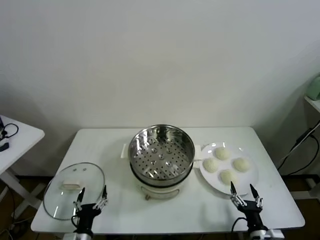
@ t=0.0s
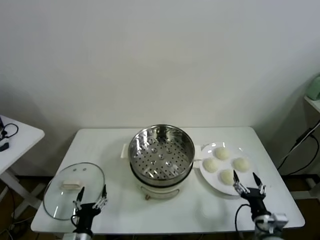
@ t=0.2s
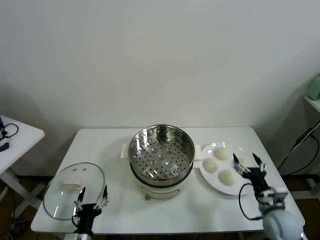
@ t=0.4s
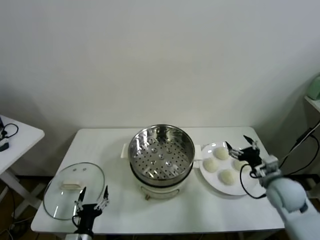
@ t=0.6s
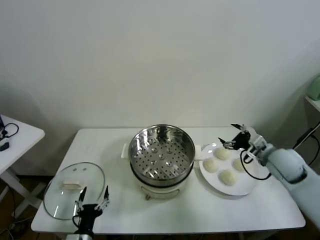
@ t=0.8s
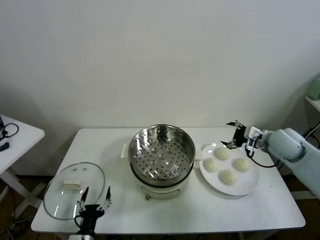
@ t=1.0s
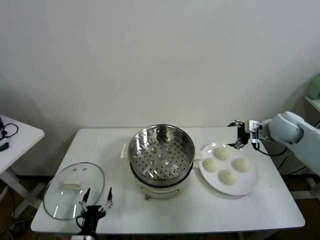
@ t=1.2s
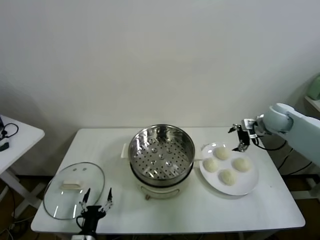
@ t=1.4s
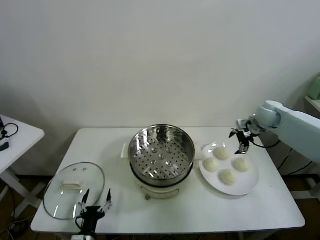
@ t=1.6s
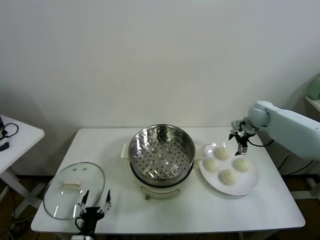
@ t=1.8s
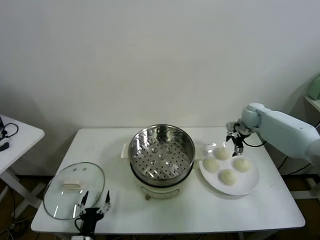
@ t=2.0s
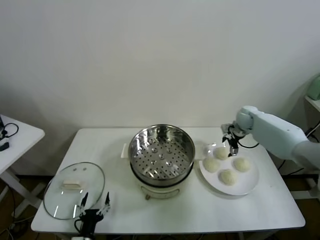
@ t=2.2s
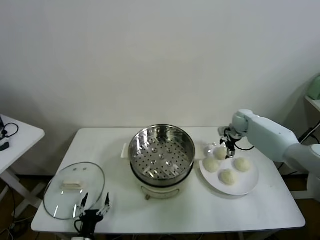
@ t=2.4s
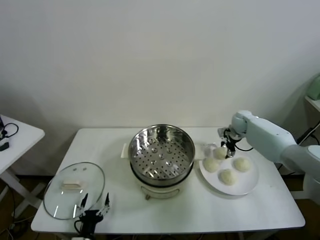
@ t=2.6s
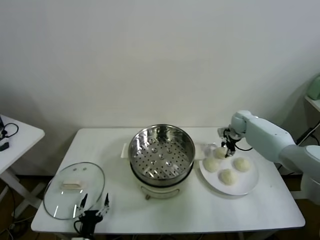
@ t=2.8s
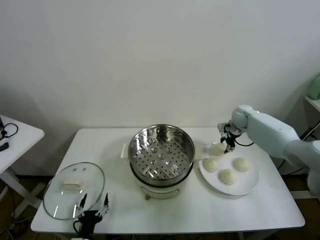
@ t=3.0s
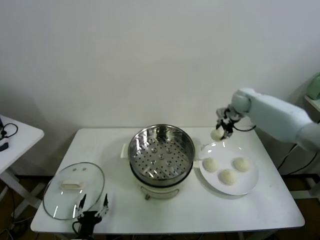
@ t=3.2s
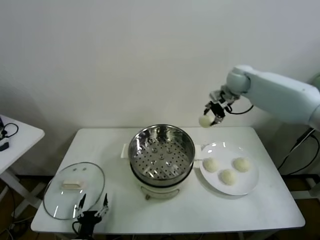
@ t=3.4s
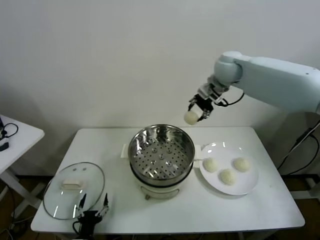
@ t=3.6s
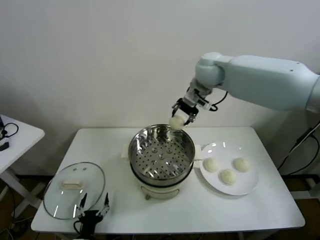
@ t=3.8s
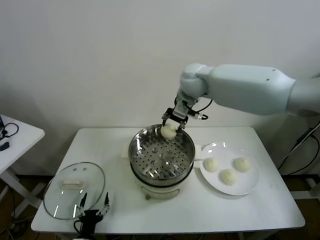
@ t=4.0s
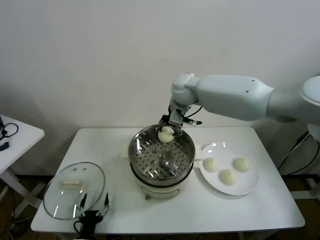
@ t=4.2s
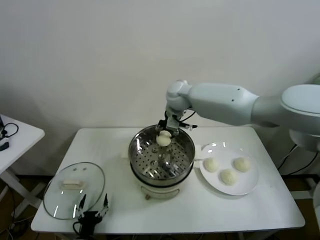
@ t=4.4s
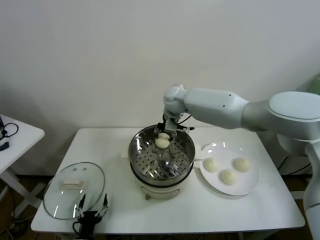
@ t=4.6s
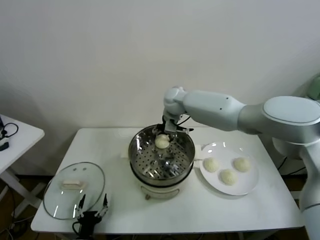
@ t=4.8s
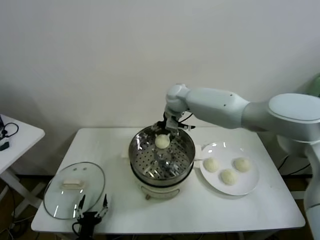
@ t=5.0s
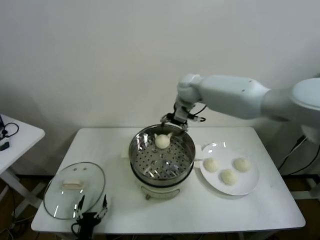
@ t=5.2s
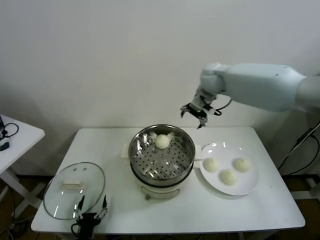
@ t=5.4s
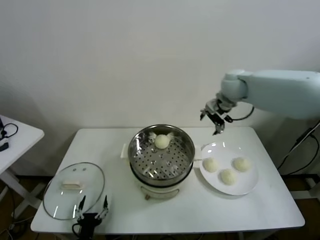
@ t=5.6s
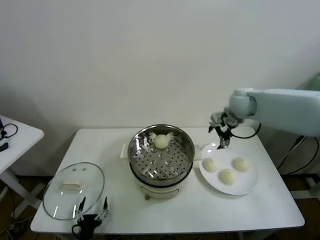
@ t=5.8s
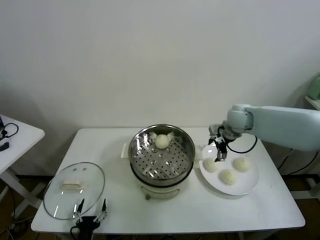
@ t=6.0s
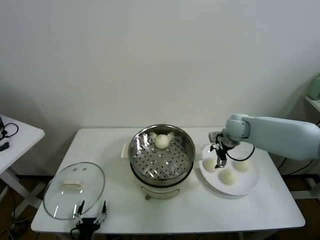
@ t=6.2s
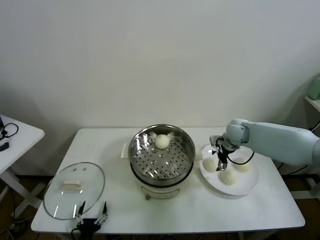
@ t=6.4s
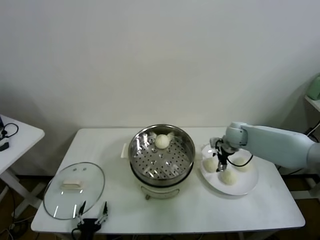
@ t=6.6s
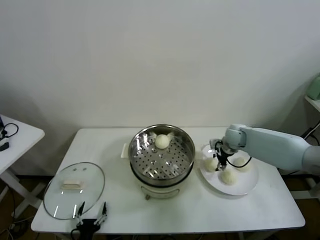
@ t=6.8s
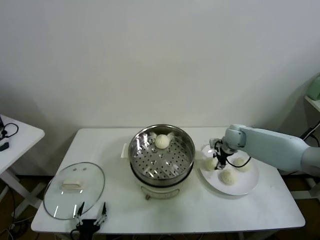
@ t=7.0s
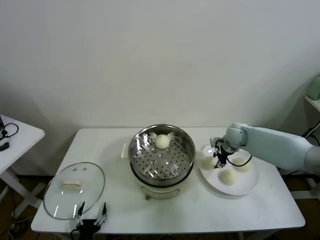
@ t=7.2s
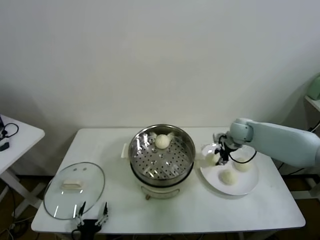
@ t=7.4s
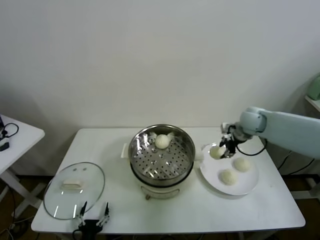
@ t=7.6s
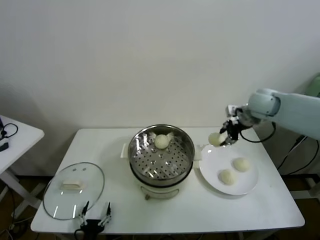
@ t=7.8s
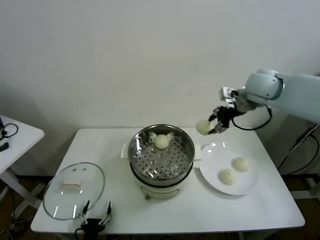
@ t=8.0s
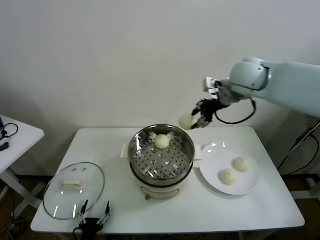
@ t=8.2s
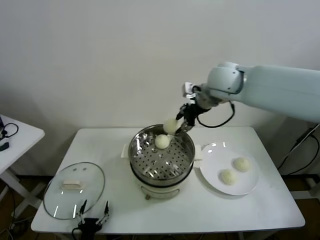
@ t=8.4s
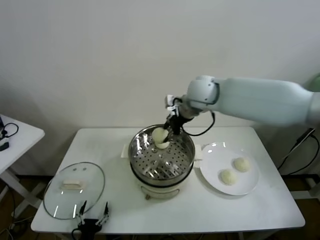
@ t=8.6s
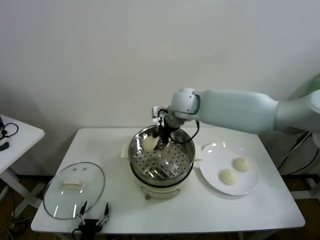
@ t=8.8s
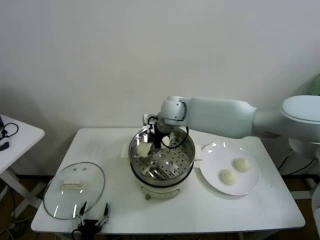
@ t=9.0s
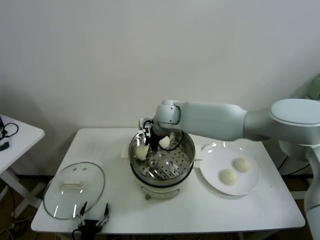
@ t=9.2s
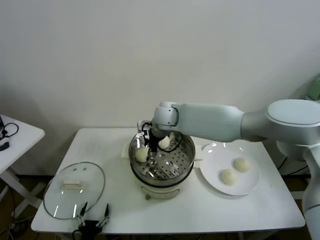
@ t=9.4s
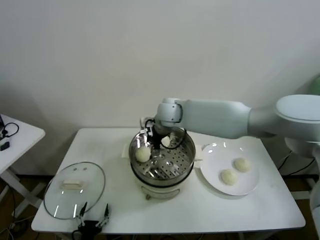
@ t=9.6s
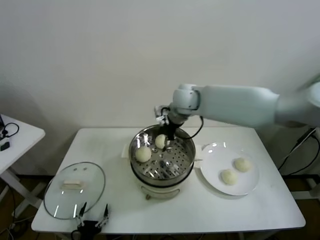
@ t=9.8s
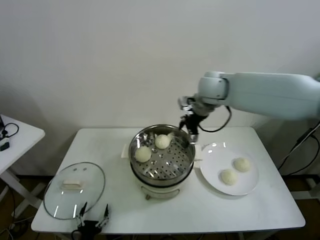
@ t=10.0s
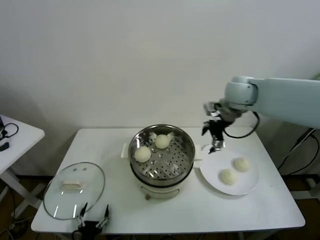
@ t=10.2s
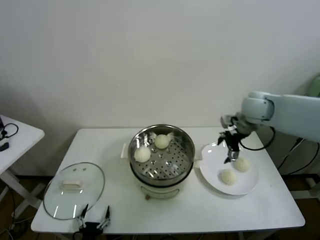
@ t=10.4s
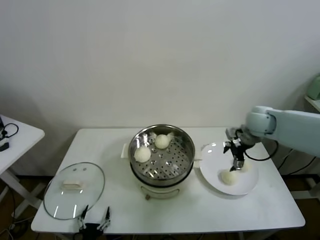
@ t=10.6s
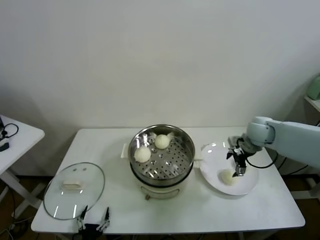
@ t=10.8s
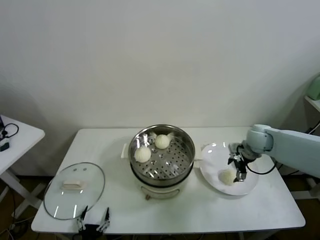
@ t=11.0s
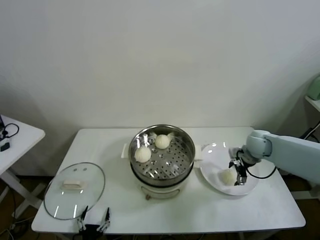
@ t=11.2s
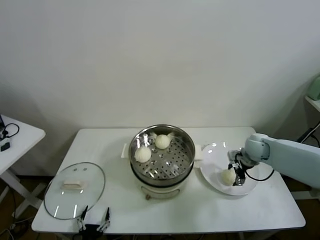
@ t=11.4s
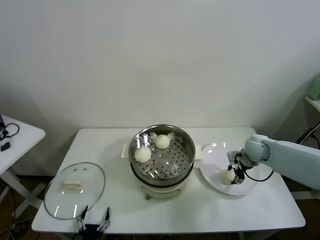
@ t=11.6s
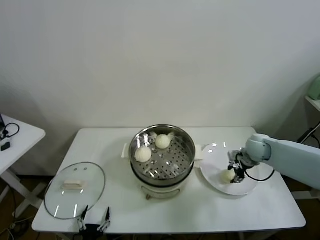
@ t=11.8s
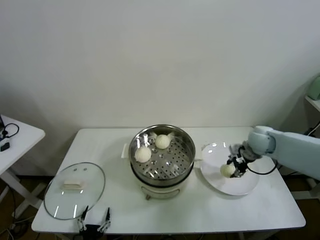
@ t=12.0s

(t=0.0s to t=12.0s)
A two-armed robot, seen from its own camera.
Task of the whole recording: take steamed baozi put them in steamer.
Step, t=0.0s - t=2.8s: Grasp the baozi in the plate with right gripper.
Step, t=3.0s - t=5.0s: Place the baozi on the steamer with right gripper.
Step, t=5.2s - t=7.0s: Grasp the baozi in the plate with right gripper.
Step, t=7.2s - t=9.4s: Place the baozi on the steamer with right gripper.
Step, t=9.6s - t=11.6s: Grasp the baozi in the plate with right gripper.
t=1.6s - t=3.0s: The right gripper heads forward, covering approximately 5 cm, moves approximately 10 cm downward and comes back, and closes up.
t=3.0s - t=4.4s: The right gripper shifts roughly 30 cm to the left.
t=4.4s - t=6.0s: The right gripper goes approximately 20 cm to the right, and opens its fingers.
t=6.0s - t=7.6s: The right gripper travels to the right by approximately 5 cm, moves some 10 cm downward and comes back, and closes its fingers.
t=7.6s - t=9.0s: The right gripper goes about 30 cm to the left.
t=9.0s - t=10.4s: The right gripper moves to the right, about 25 cm, and opens its fingers.
t=10.4s - t=12.0s: The right gripper travels downward and to the right by some 15 cm, and closes its fingers.

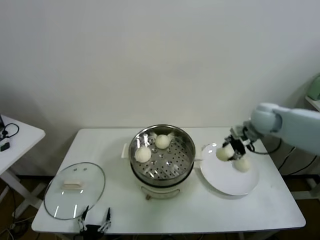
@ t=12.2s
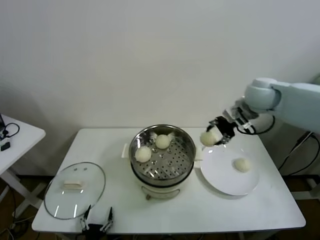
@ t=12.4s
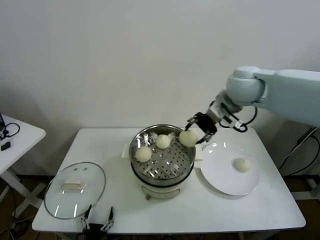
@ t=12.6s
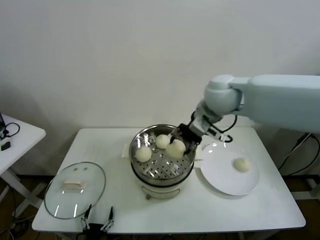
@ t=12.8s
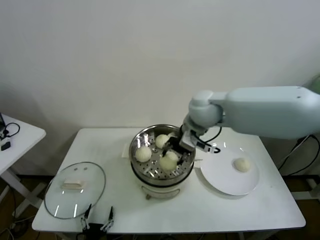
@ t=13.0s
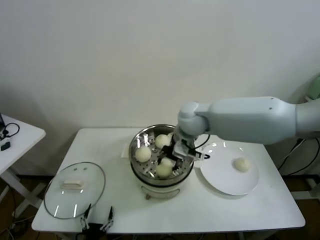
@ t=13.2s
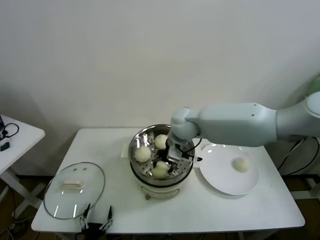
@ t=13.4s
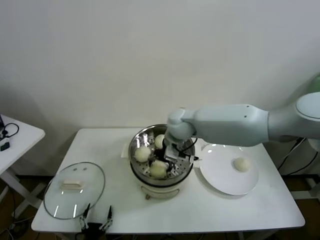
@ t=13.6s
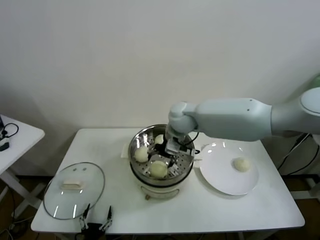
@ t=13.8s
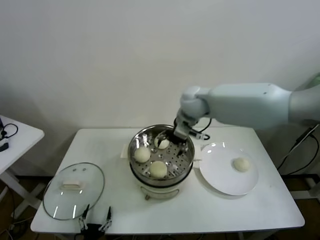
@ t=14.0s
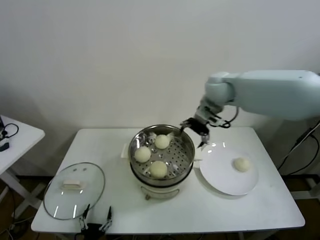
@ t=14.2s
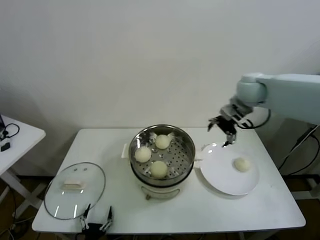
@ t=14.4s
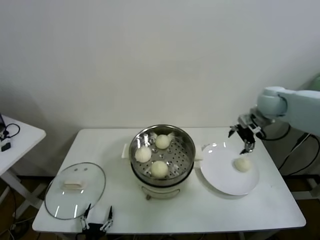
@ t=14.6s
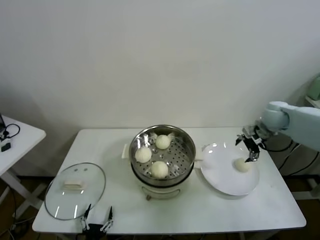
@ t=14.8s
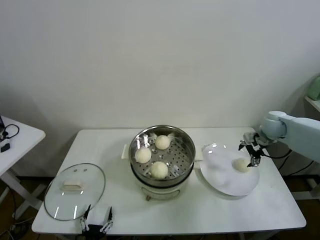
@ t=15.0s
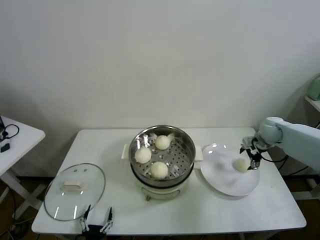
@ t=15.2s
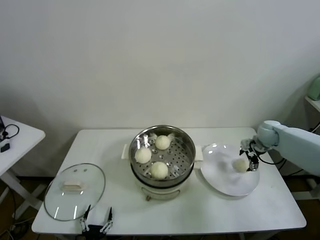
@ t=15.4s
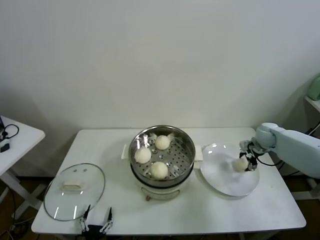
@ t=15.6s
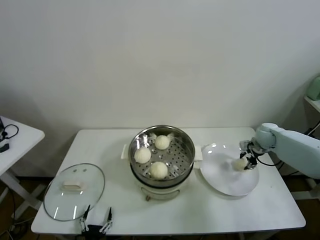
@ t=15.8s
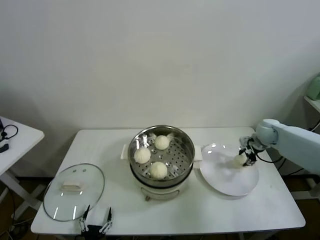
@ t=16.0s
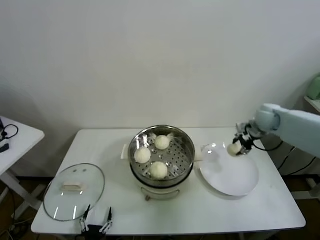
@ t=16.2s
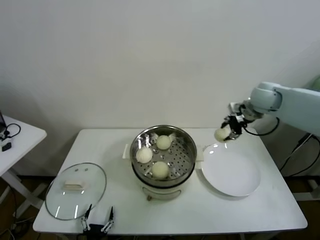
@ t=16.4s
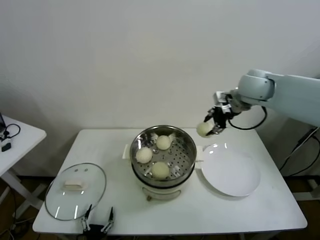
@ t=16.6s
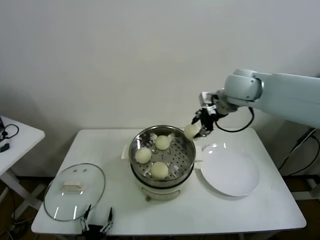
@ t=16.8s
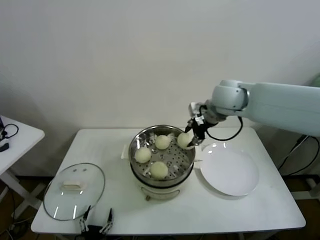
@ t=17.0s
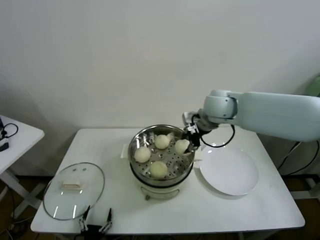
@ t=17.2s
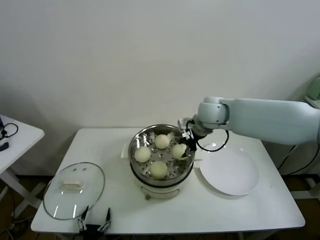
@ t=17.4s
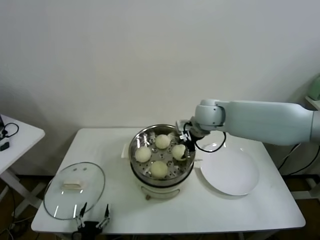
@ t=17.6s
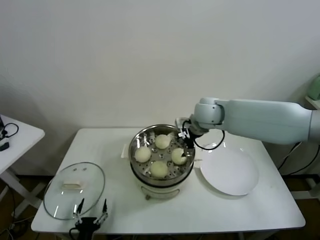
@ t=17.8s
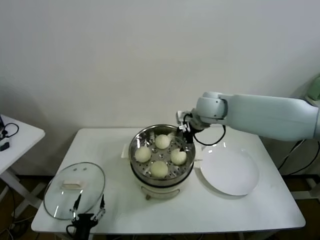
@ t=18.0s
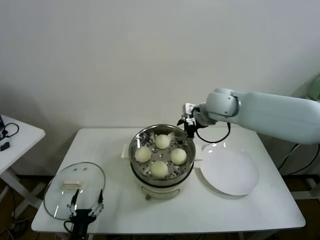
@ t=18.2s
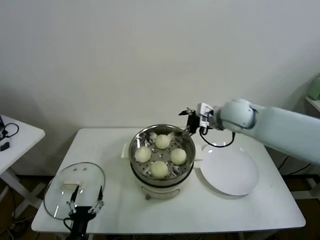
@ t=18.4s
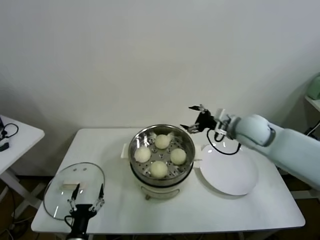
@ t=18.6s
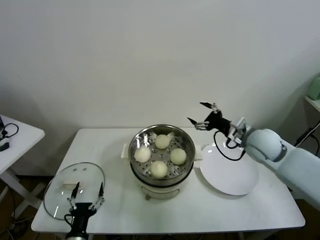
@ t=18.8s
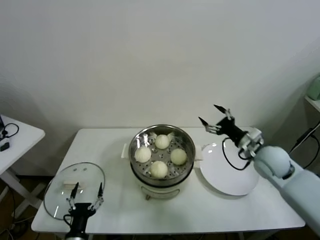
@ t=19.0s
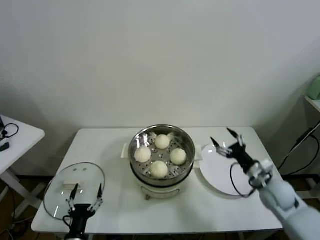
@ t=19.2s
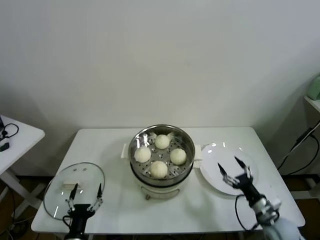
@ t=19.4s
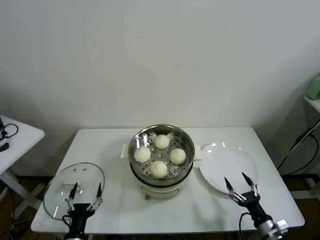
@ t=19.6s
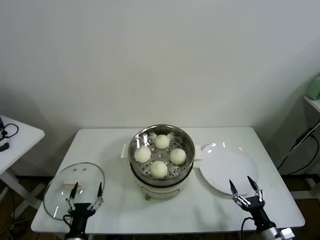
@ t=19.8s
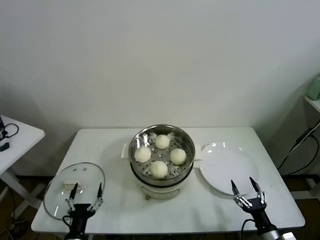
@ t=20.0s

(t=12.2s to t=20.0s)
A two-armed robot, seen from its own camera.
Task of the whole recording: take steamed baozi put them in steamer.
Step, t=12.2s - t=13.6s: Place the baozi on the steamer with right gripper.
Step, t=13.8s - t=15.8s: Grasp the baozi in the plate with right gripper.
Step, t=16.0s - t=17.8s: Place the baozi on the steamer with right gripper.
t=12.2s - t=13.8s: The right gripper is displaced to the left by about 25 cm, and opens.
t=13.8s - t=15.4s: The right gripper is displaced to the right by approximately 35 cm.
t=15.4s - t=16.8s: The right gripper is displaced upward and to the left by roughly 30 cm, and closes.
t=16.8s - t=18.4s: The right gripper goes some 10 cm downward, and opens up. Meanwhile the left gripper goes about 10 cm upward.
t=18.4s - t=20.0s: The right gripper travels downward, backward and to the right by roughly 50 cm.
